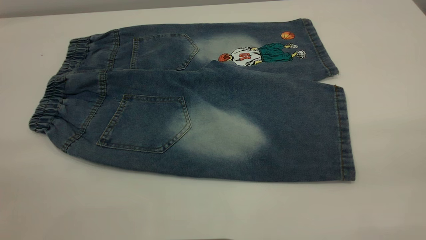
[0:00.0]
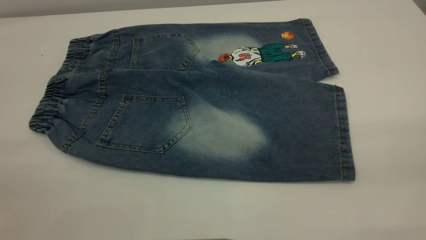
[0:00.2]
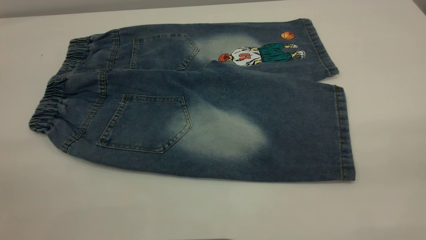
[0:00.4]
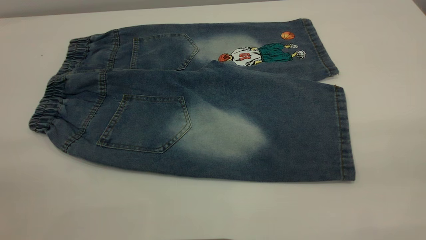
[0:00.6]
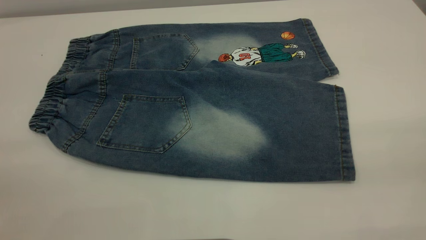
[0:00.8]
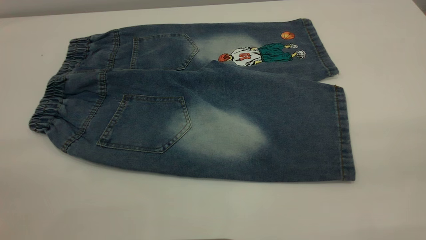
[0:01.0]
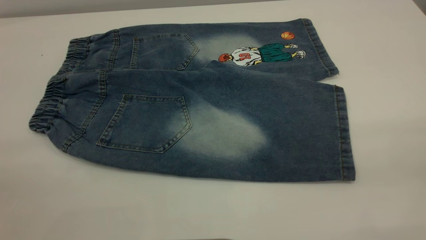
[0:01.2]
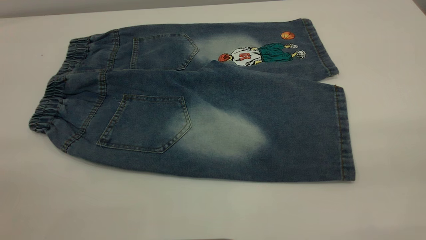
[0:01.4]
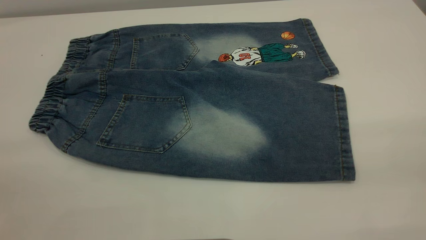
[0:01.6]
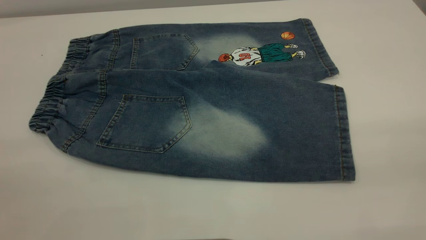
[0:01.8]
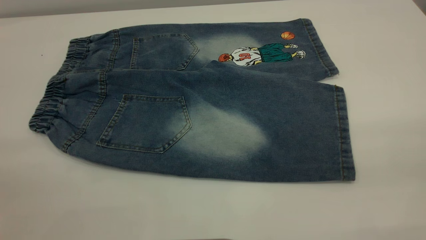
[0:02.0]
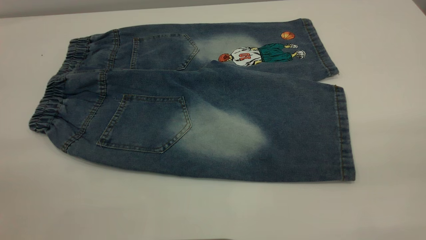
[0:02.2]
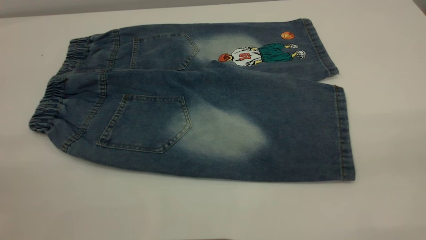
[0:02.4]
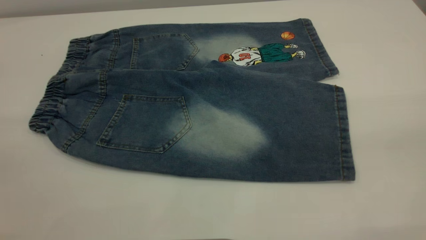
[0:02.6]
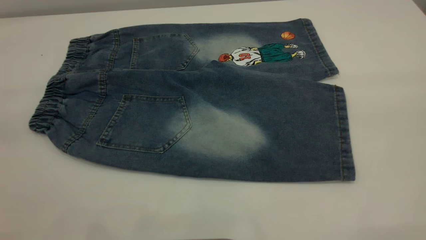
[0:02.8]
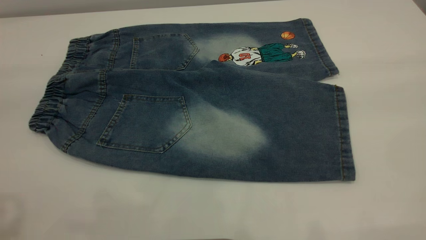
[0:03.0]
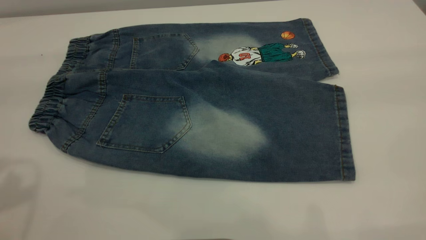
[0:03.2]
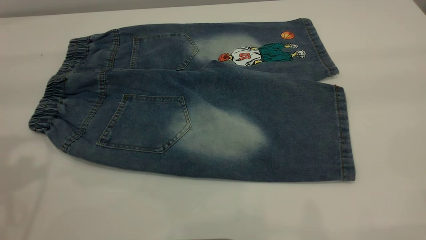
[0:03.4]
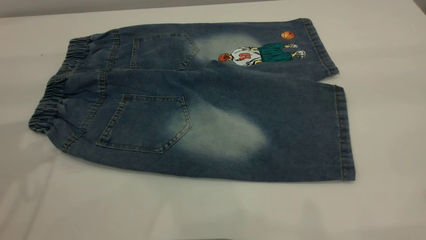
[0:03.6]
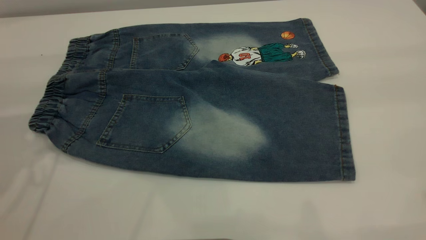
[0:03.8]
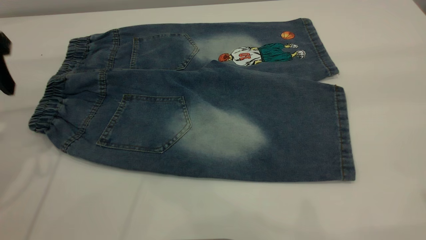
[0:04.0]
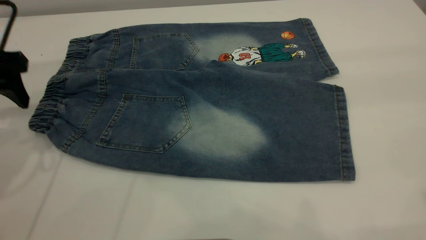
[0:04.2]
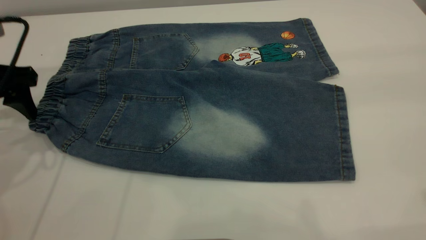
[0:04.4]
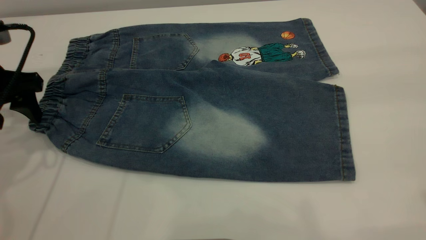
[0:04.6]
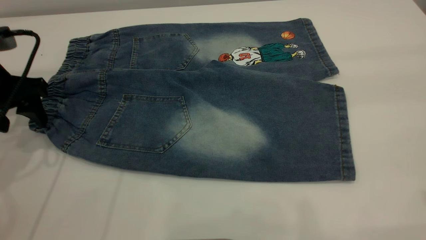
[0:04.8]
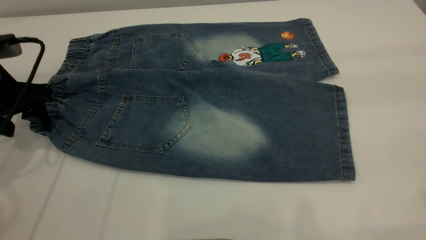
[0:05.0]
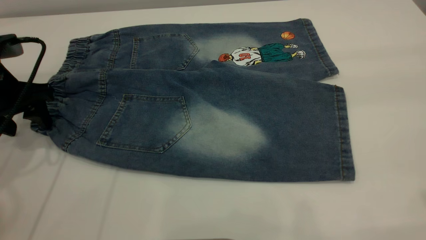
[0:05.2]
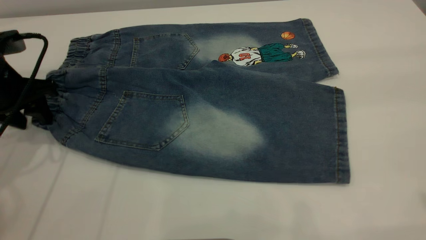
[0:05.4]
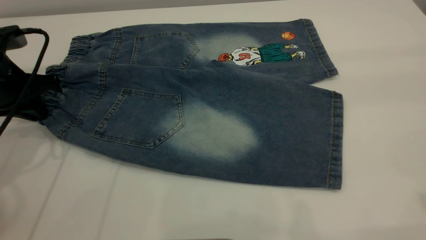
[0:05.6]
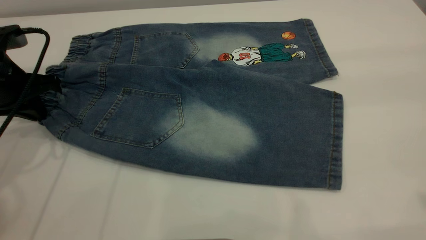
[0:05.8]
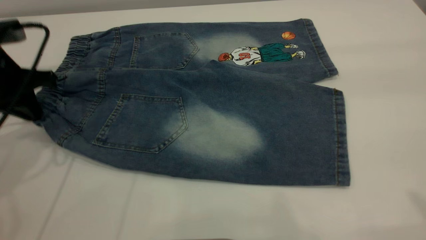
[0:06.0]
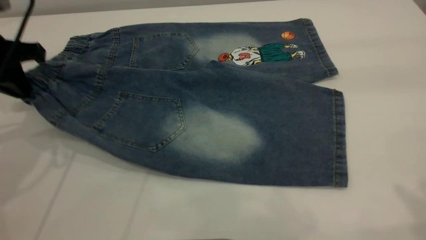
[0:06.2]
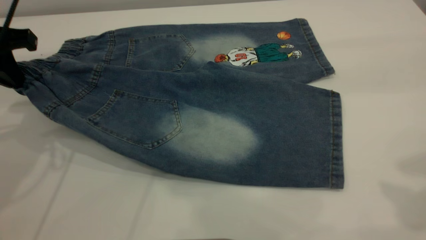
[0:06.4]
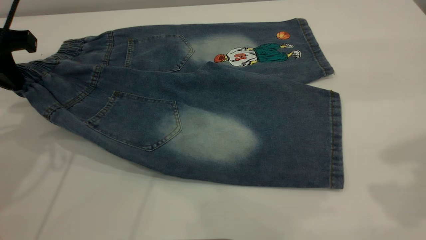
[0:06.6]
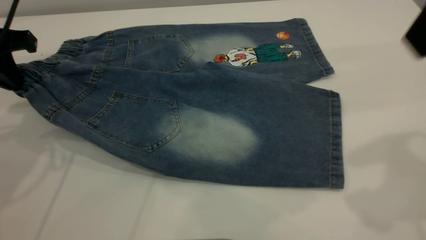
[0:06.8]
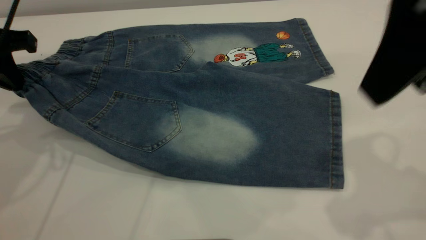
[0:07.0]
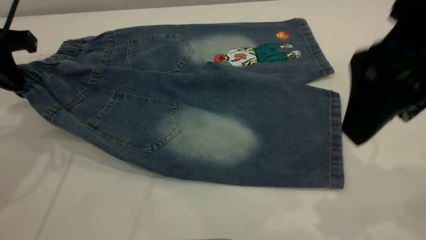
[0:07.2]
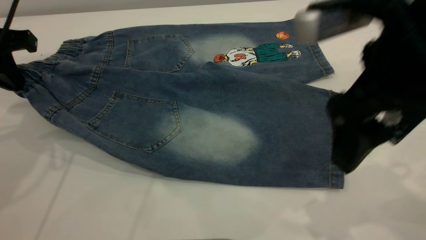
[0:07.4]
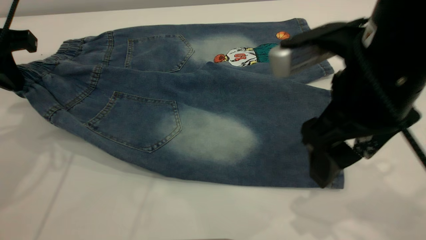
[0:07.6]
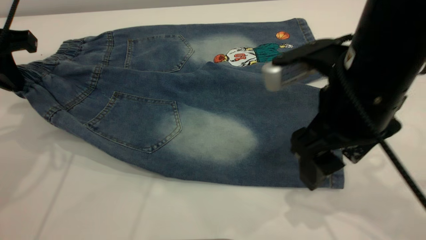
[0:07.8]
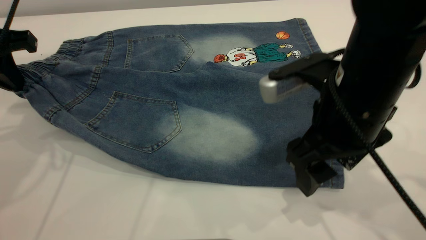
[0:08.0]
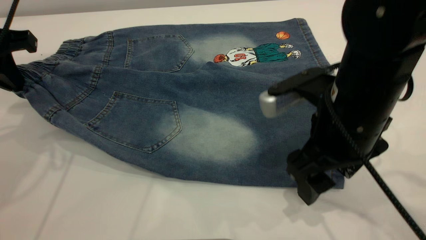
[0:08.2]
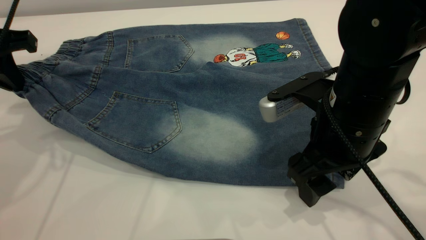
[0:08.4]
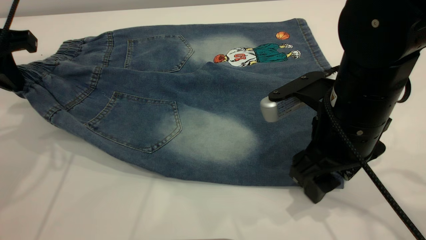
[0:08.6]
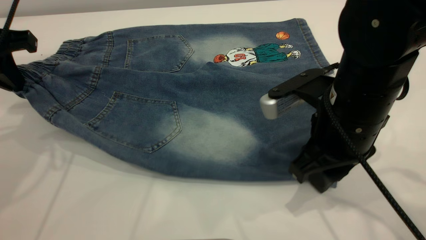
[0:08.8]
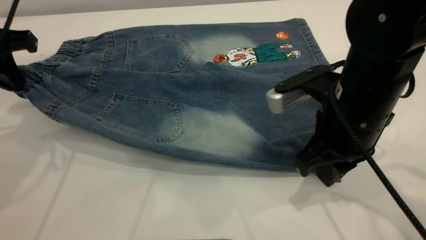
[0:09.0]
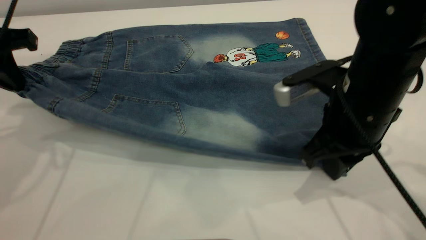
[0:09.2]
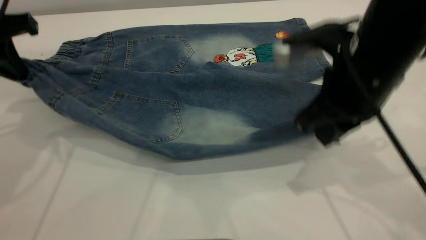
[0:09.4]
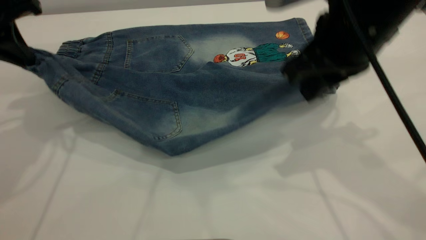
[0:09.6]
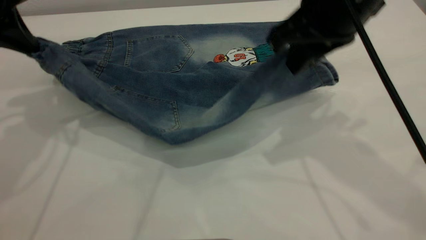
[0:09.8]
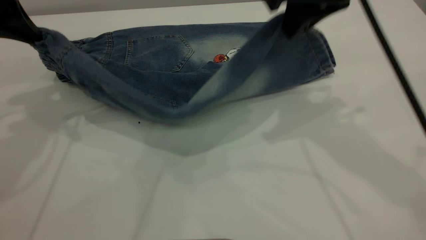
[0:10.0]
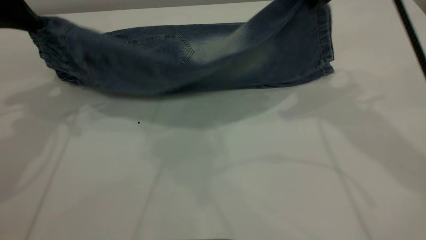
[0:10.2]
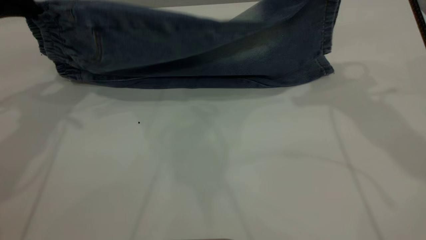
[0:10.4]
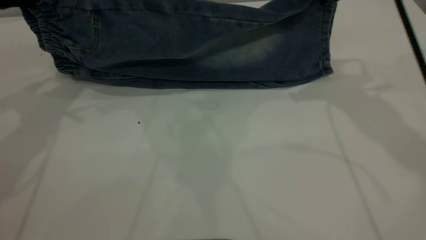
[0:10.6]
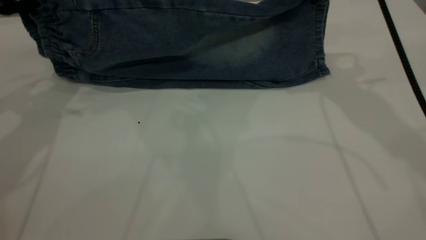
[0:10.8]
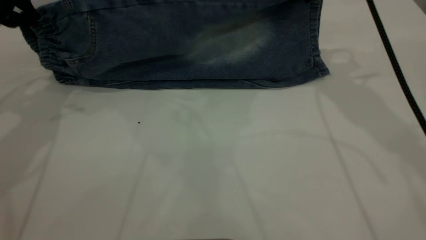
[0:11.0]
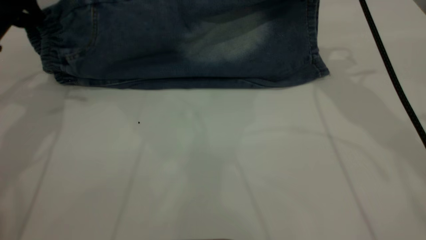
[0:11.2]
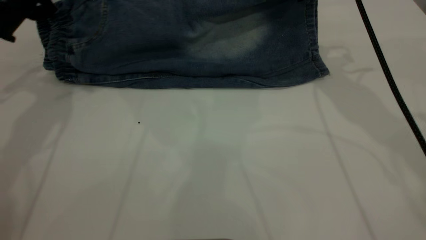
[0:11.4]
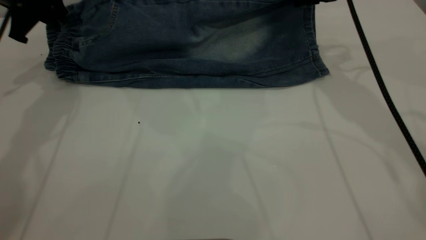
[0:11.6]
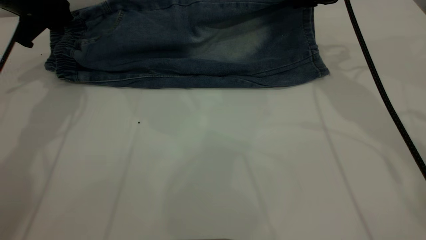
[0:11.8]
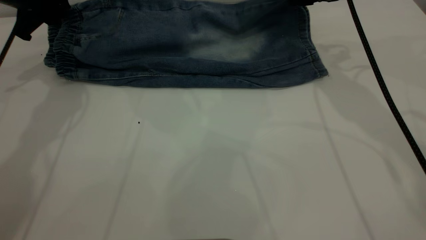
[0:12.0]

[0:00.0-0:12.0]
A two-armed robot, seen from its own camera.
0:00.0 to 0:01.6: Both grippers stay about where they are.
0:03.0 to 0:04.4: The left gripper travels downward and forward by about 25 cm.
0:04.4 to 0:06.0: The left gripper closes up.
0:06.0 to 0:07.6: The right gripper moves downward, to the left and forward, approximately 30 cm.
0:07.6 to 0:09.0: The right gripper shifts some 5 cm downward, and closes up.
0:09.0 to 0:10.4: The right gripper moves upward and forward, roughly 20 cm. Meanwhile the left gripper shifts by about 5 cm.
0:10.4 to 0:12.0: The right gripper heads downward and forward, covering roughly 10 cm, and opens its fingers. The left gripper travels forward and downward by approximately 10 cm.

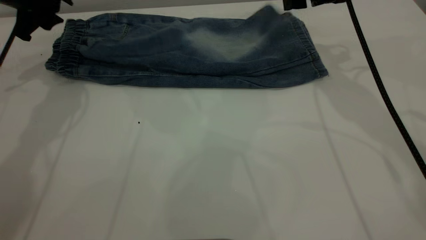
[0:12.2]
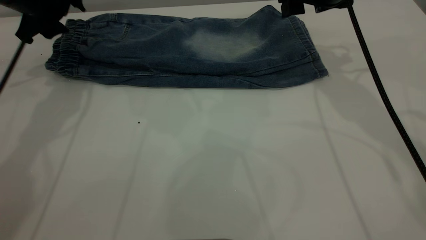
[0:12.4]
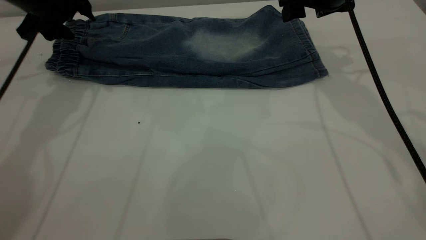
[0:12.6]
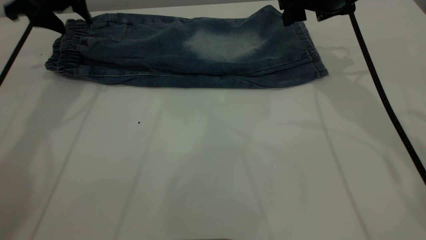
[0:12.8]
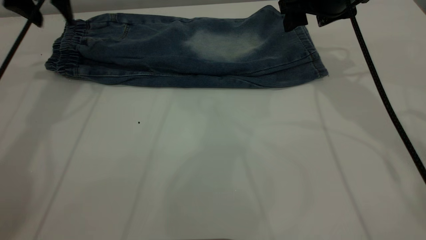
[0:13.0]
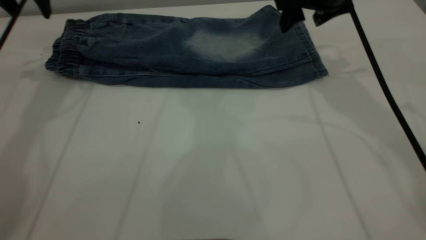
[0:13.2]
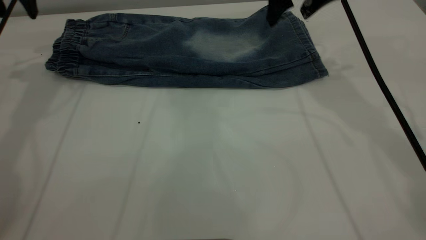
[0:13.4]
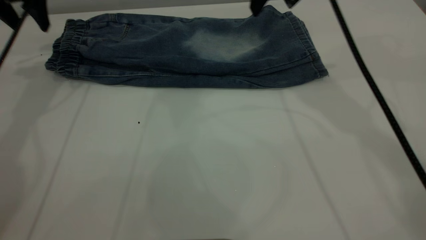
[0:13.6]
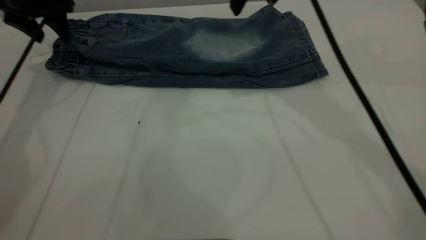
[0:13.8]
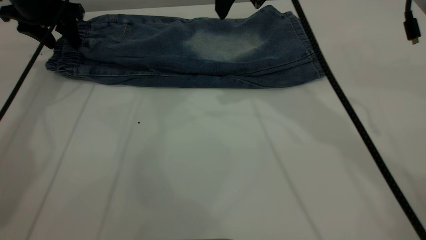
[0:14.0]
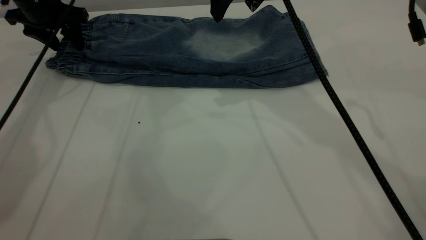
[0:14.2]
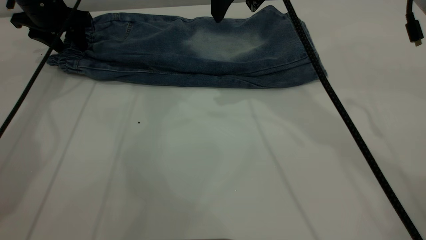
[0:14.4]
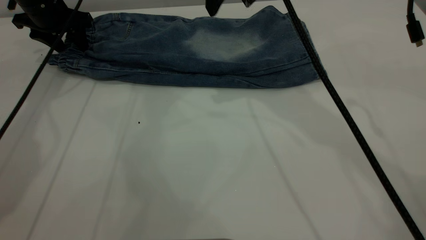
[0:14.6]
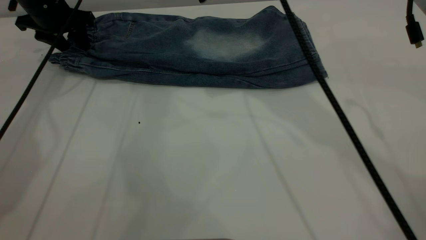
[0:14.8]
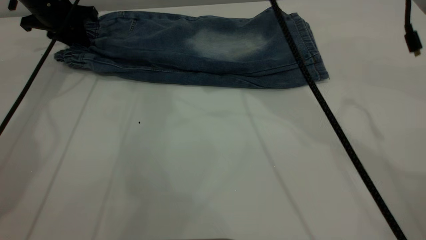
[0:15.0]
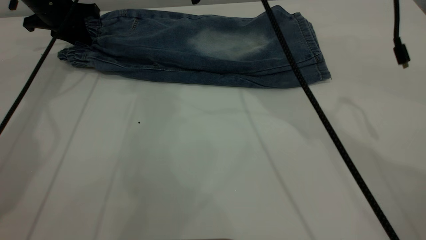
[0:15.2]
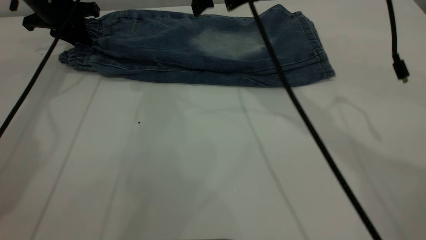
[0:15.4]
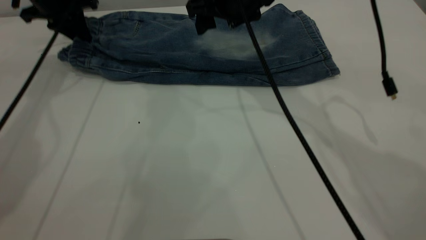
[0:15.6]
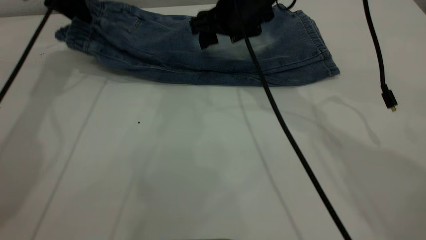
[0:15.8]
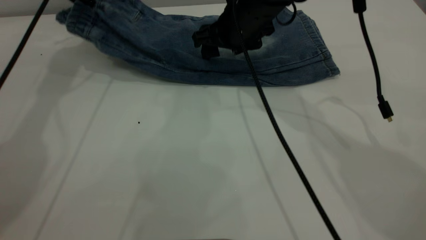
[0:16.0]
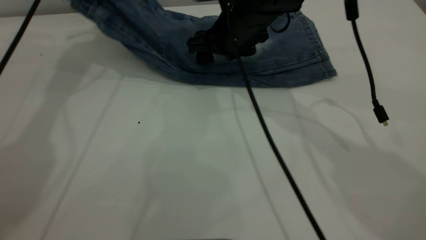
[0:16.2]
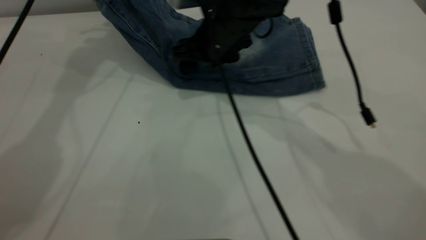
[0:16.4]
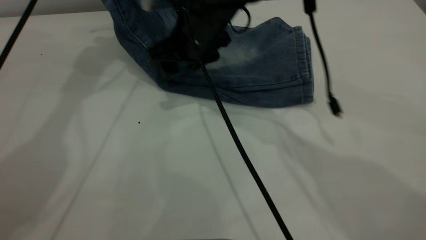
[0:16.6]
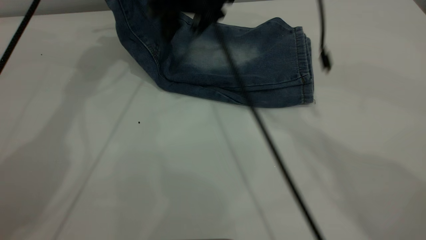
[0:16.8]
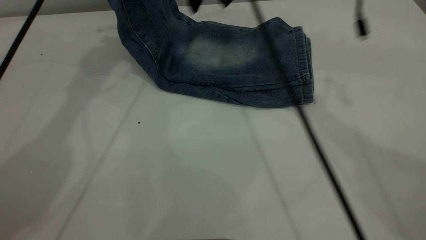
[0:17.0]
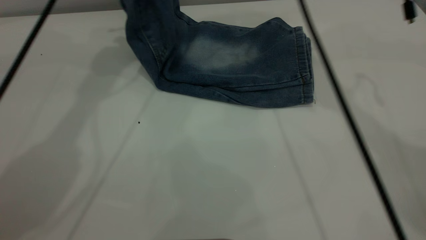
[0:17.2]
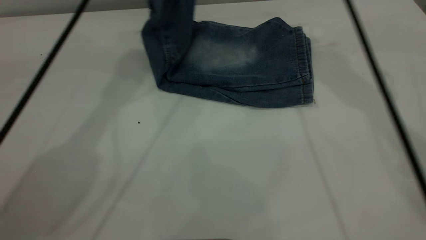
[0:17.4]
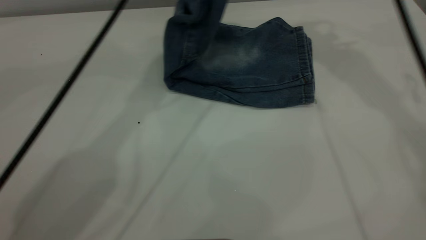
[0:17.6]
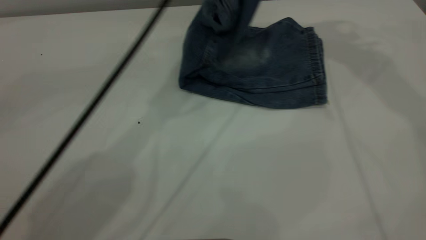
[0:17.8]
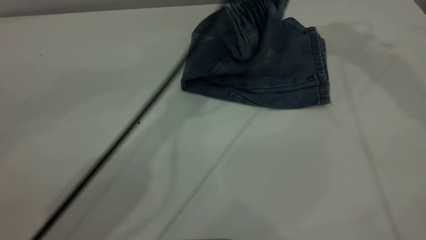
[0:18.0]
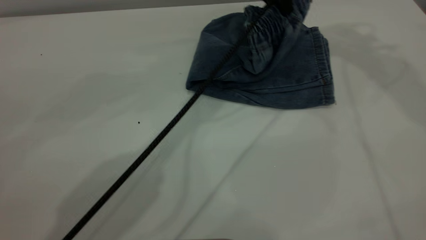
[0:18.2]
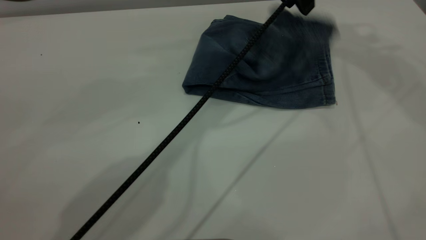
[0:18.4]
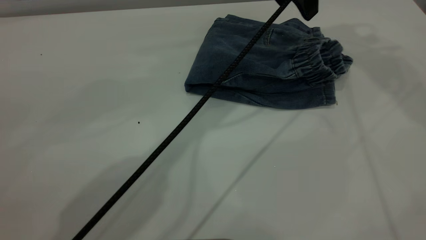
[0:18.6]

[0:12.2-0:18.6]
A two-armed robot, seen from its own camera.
0:12.2 to 0:13.8: The left gripper reaches approximately 5 cm upward, then returns; the right gripper goes approximately 10 cm to the left and upward.
0:13.8 to 0:15.4: The right gripper travels downward by approximately 5 cm, while the left gripper closes.
0:15.4 to 0:17.0: The left gripper travels upward and to the right by approximately 20 cm, while the right gripper goes roughly 5 cm upward.
0:17.0 to 0:18.6: The left gripper heads to the right, covering roughly 25 cm, and opens up, while the right gripper is displaced upward and to the right by about 25 cm.
